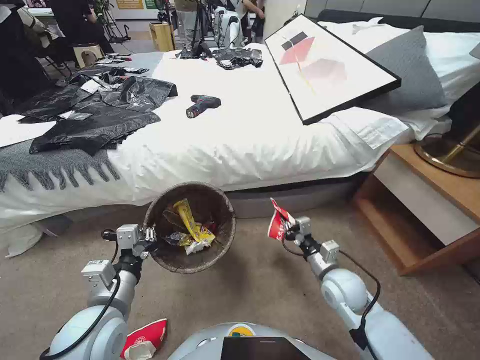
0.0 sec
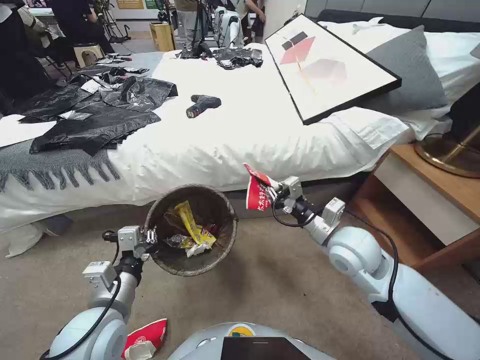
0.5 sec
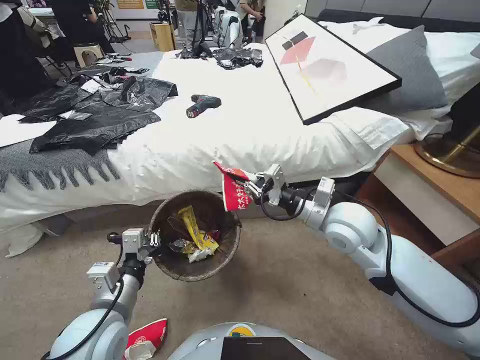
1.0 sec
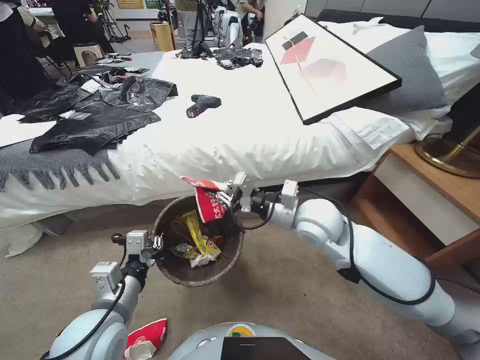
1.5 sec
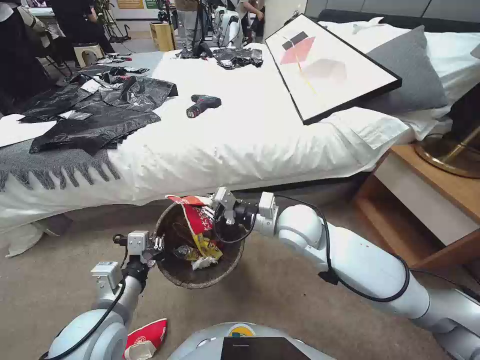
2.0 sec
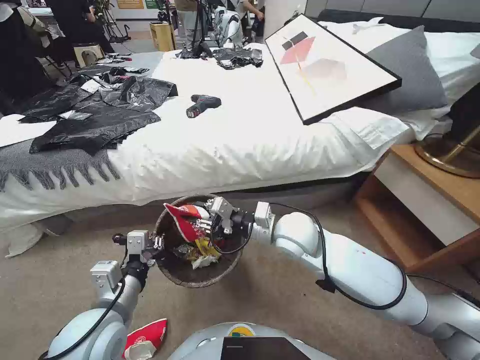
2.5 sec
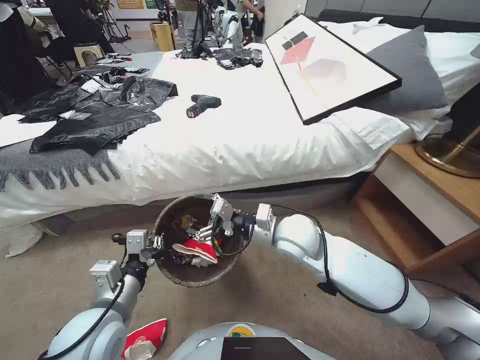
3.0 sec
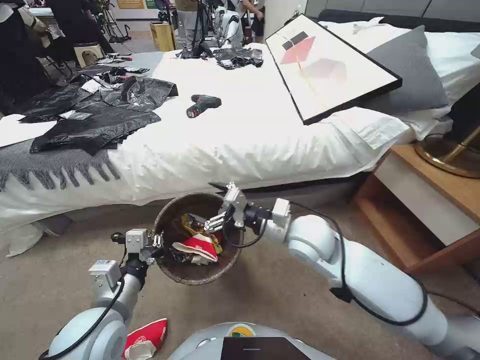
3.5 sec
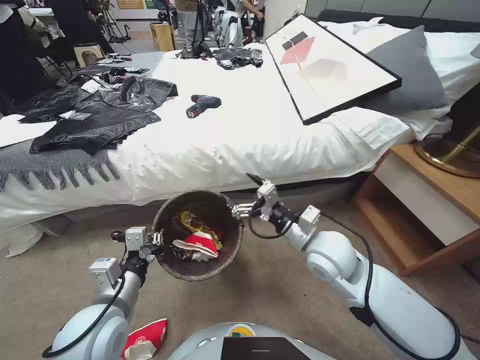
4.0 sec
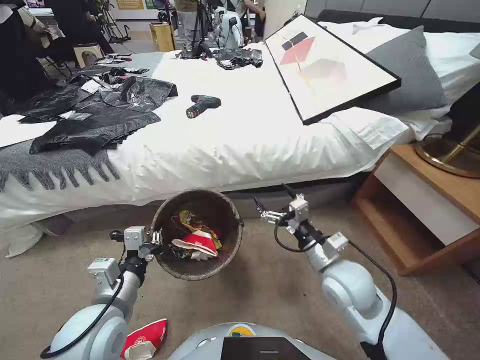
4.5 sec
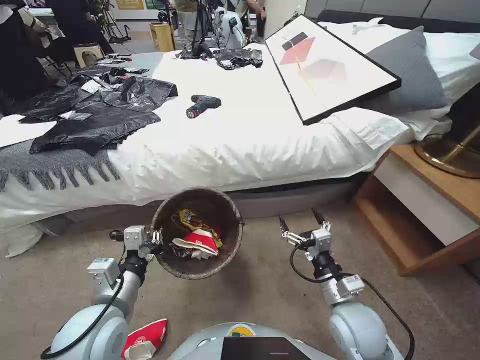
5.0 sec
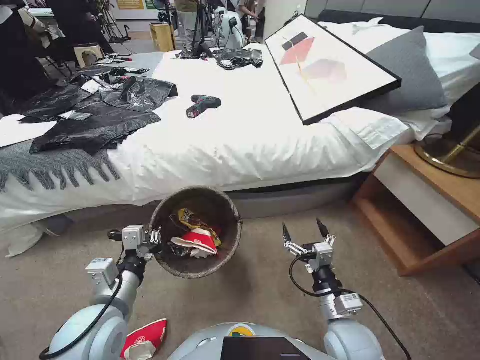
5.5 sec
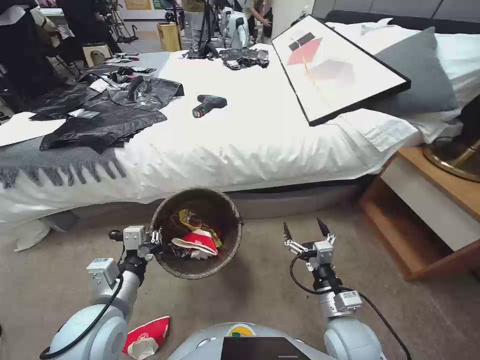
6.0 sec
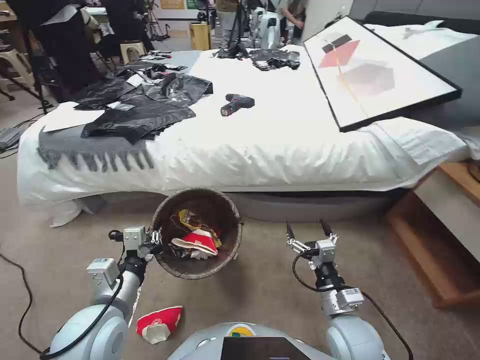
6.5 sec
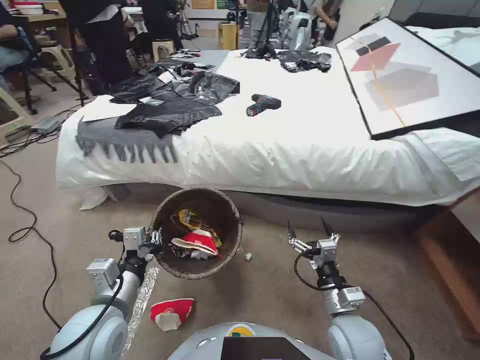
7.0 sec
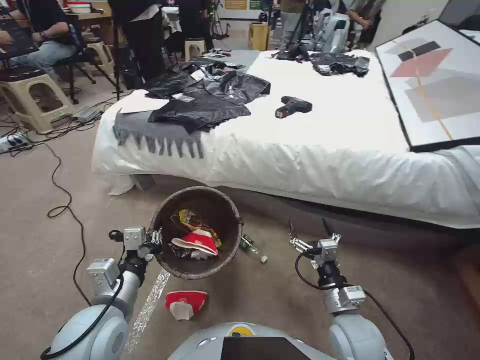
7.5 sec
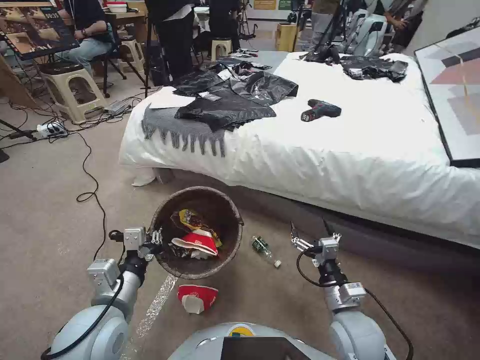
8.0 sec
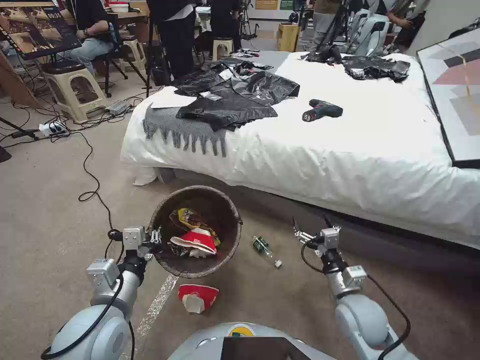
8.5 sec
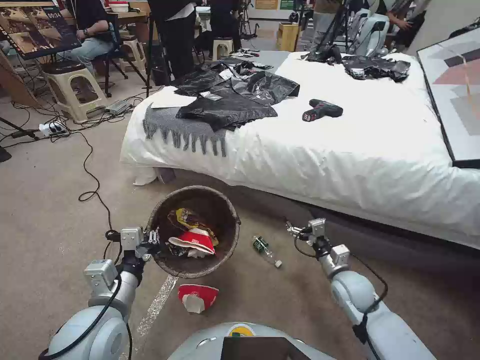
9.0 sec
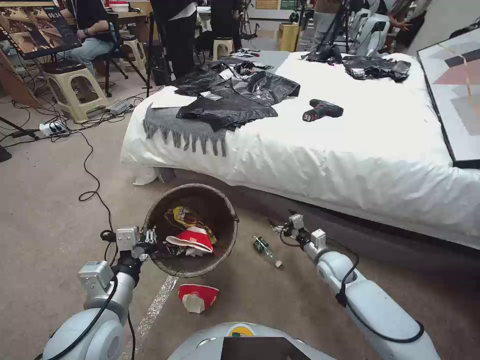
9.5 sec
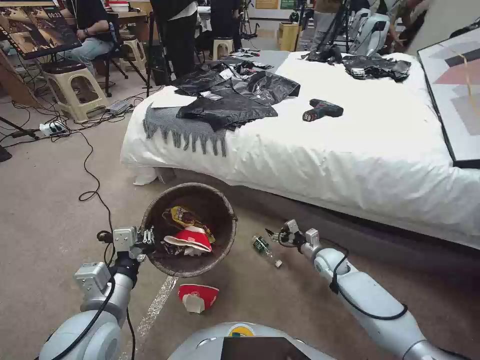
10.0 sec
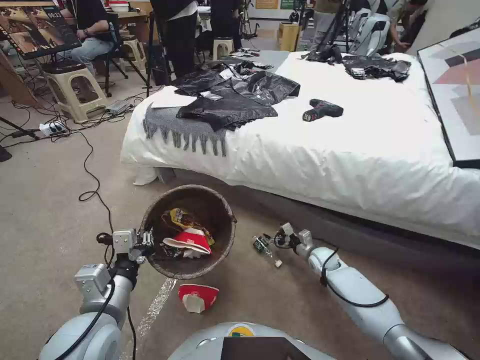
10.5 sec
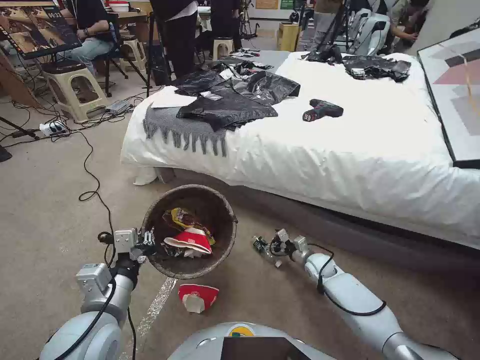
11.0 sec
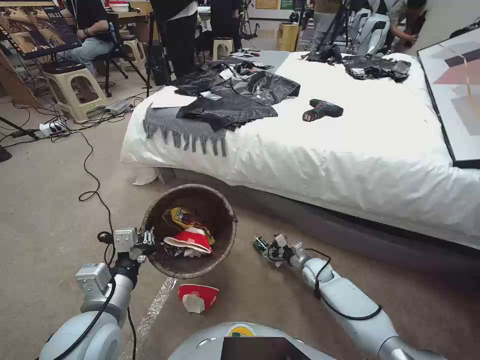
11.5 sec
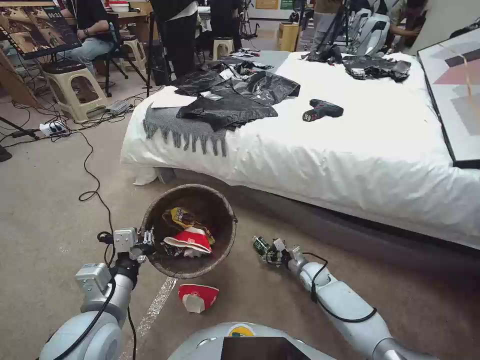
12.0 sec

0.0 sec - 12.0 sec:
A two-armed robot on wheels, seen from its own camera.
Task of the whole recording: Pick up the trash bin, then pick up the garbage from the floor and place it into the trash bin.
0.0 sec - 2.0 sec: The right gripper travels upward, to the left and forward by approximately 25 cm.
2.0 sec - 4.0 sec: The right gripper is displaced backward by some 5 cm, and opens its fingers.
4.0 sec - 6.0 sec: The right gripper is displaced backward and downward by about 20 cm.
8.0 sec - 10.0 sec: The right gripper moves forward and downward, about 20 cm.
10.0 sec - 12.0 sec: The right gripper is displaced downward by some 10 cm.

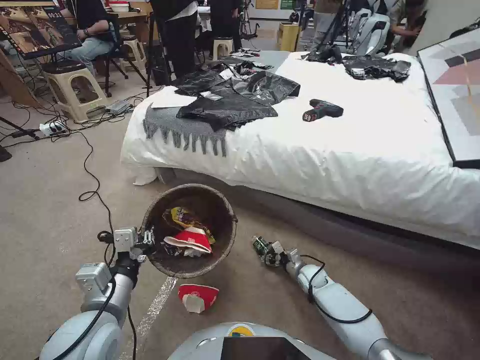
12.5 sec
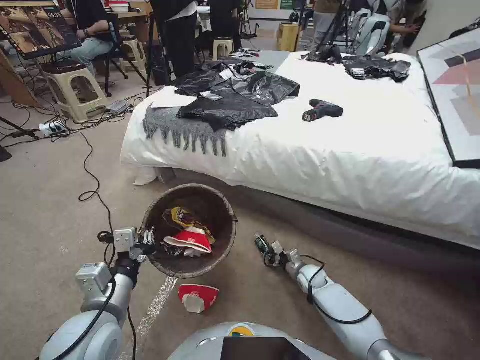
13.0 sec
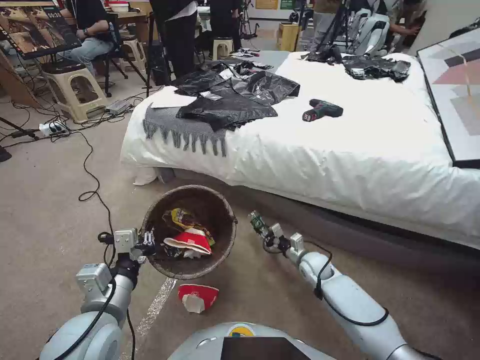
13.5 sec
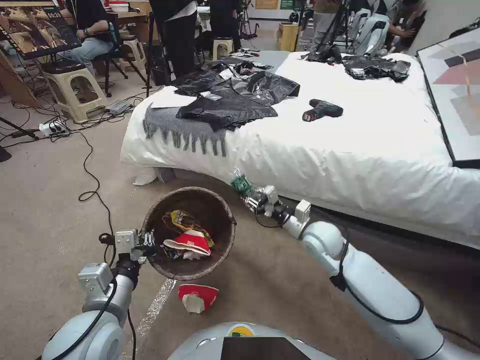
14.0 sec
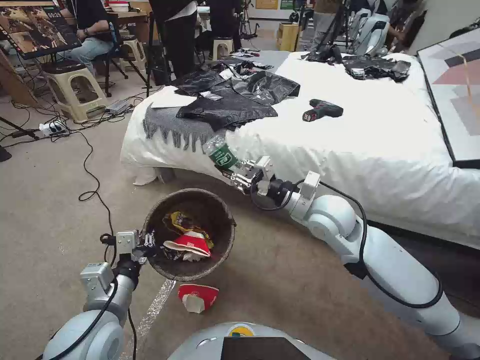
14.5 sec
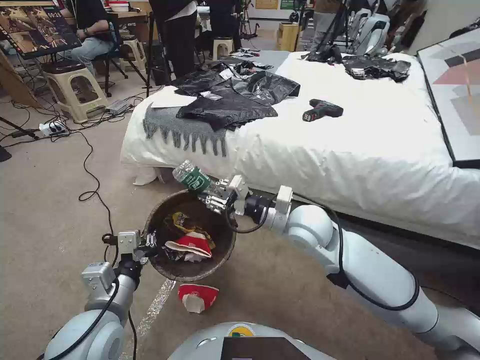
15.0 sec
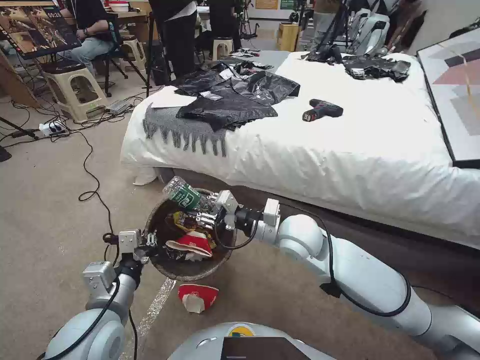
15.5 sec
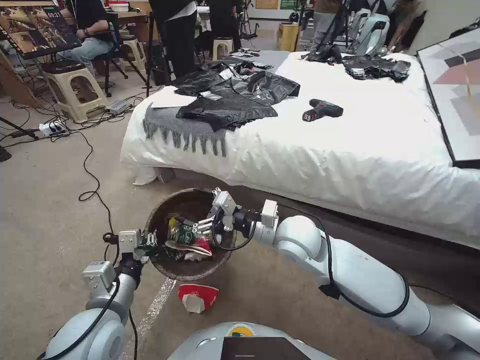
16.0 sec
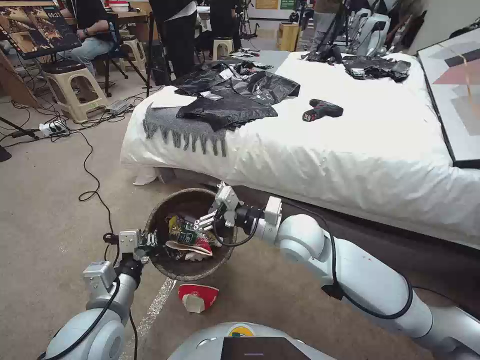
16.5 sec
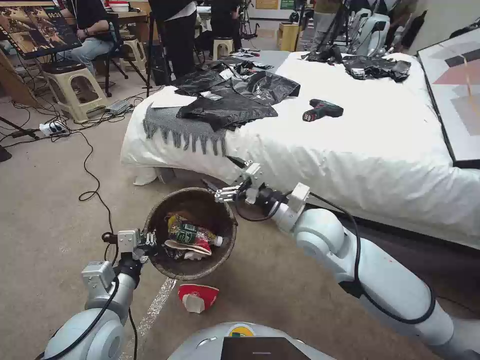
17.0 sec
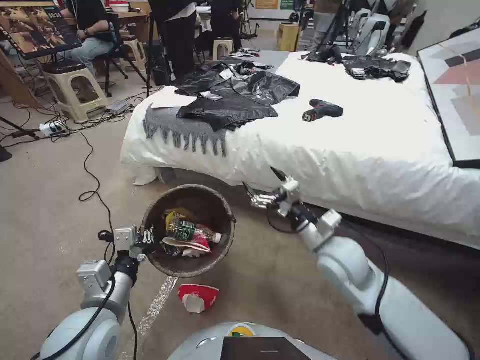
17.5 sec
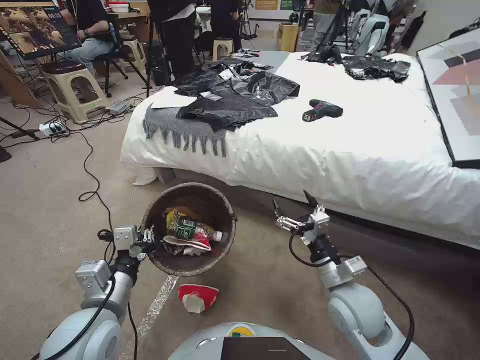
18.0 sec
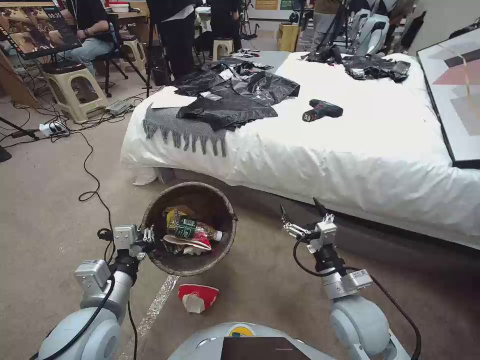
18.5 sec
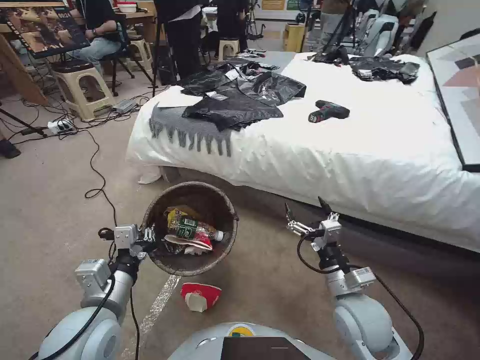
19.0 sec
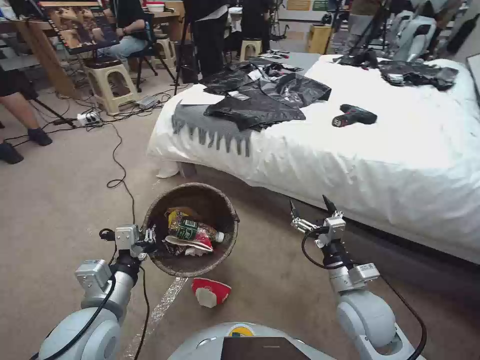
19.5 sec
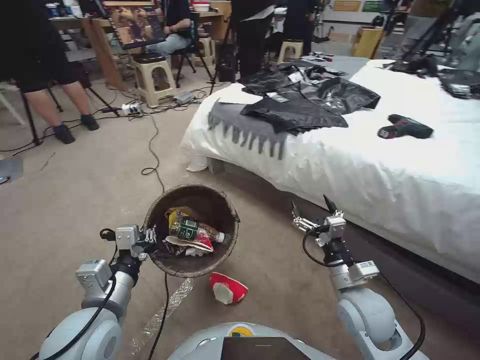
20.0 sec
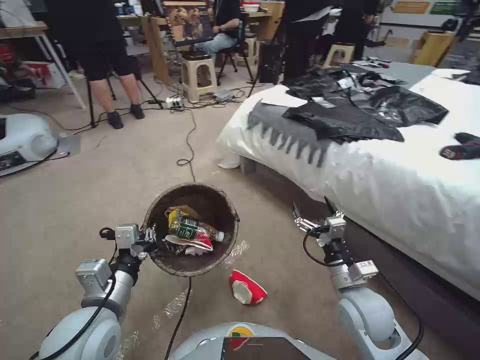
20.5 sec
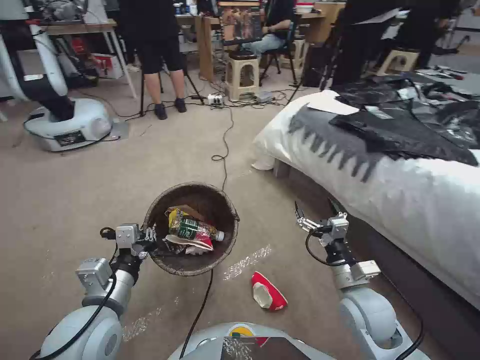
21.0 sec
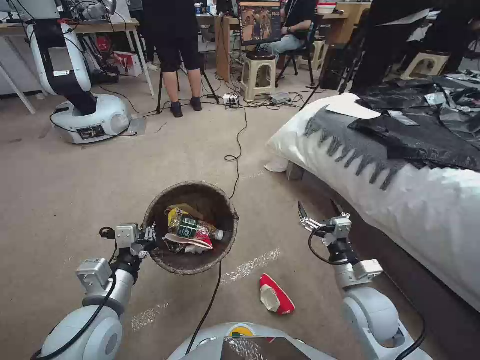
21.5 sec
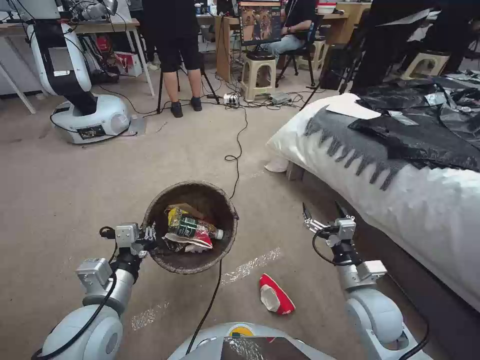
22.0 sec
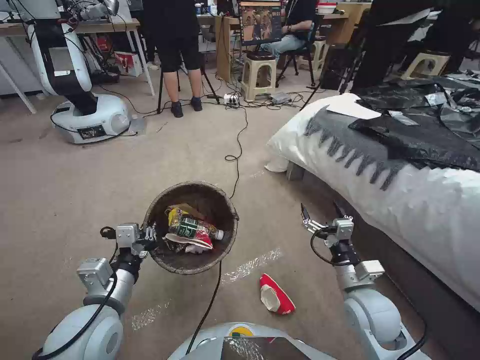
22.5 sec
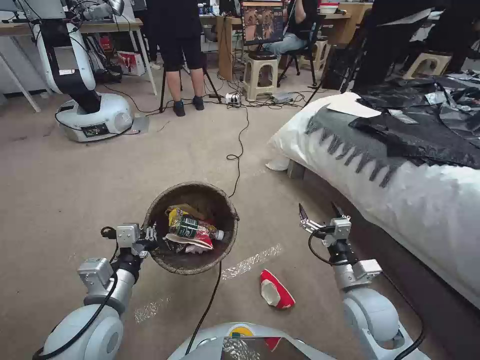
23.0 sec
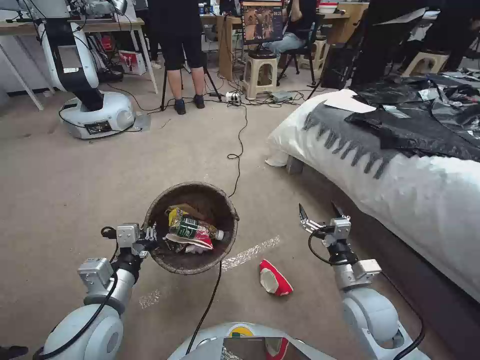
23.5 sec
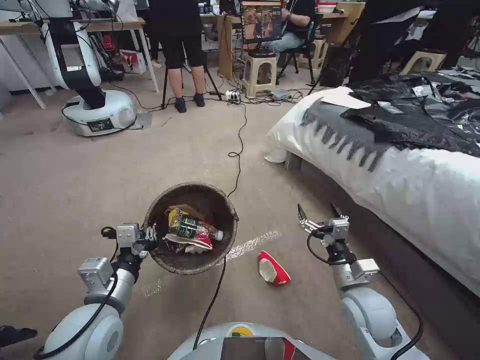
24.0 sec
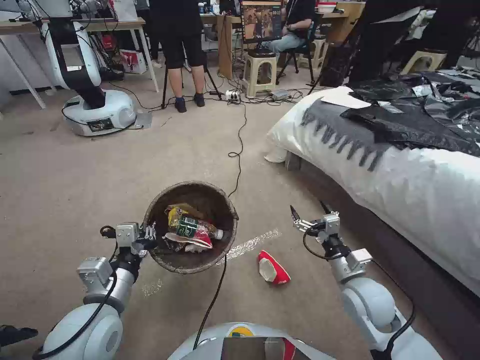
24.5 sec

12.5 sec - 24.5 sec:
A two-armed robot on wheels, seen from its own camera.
Task of the whole recording: Pick up the trash bin, then pick up the garbage from the floor and place it into the trash bin.
12.5 sec - 14.5 sec: The right gripper moves upward, some 35 cm, and closes its fingers.
14.5 sec - 16.5 sec: The right gripper goes approximately 10 cm to the left, and opens up.
16.5 sec - 18.5 sec: The right gripper shifts roughly 20 cm backward, to the right and downward.

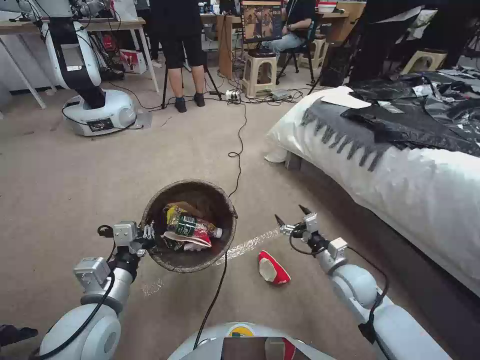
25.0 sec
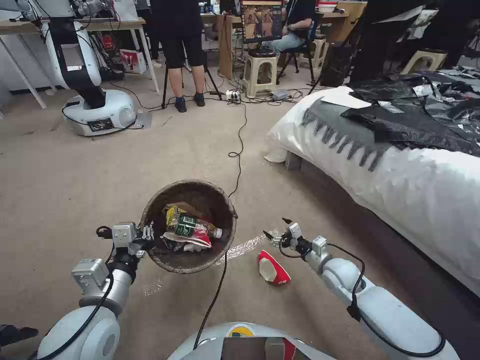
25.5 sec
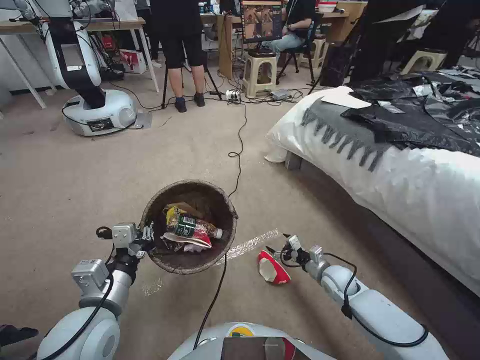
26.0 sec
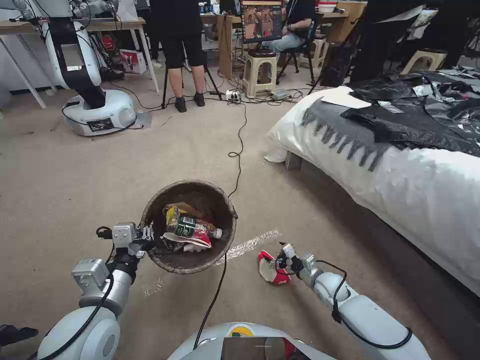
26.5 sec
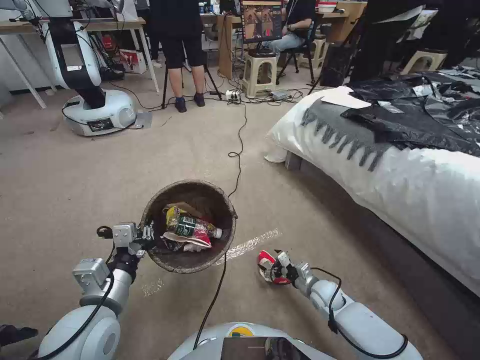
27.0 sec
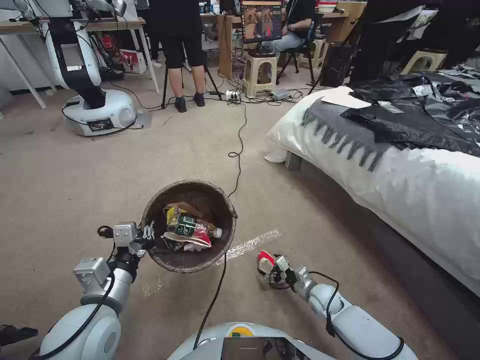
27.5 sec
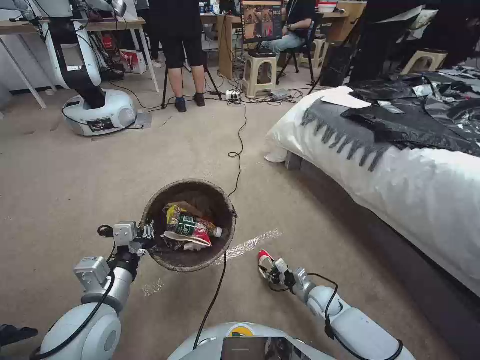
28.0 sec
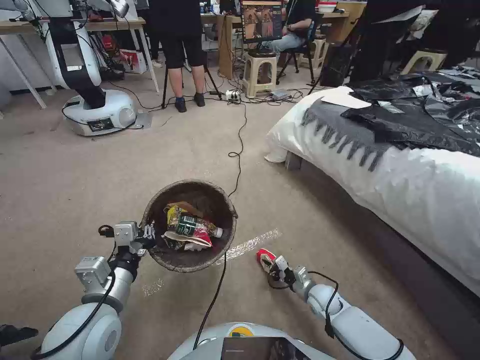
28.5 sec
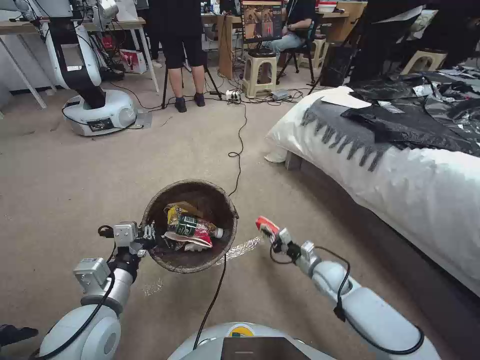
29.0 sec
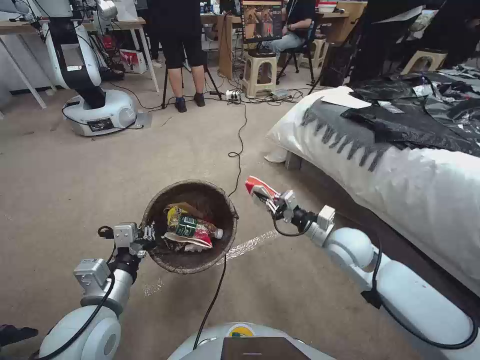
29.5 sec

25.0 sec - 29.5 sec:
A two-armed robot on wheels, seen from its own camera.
Task of the whole recording: Pick up the trash bin, then pick up the garbage from the floor and place it into the trash bin.
25.0 sec - 27.0 sec: The right gripper moves downward, roughly 15 cm.
27.0 sec - 29.5 sec: The right gripper is displaced upward by some 25 cm, and closes up.
